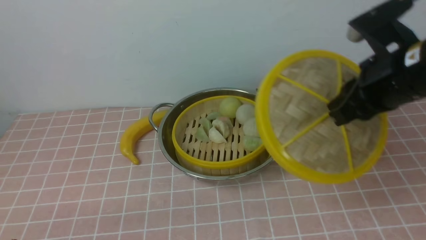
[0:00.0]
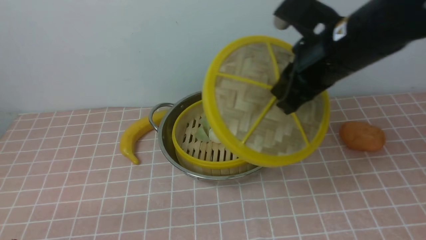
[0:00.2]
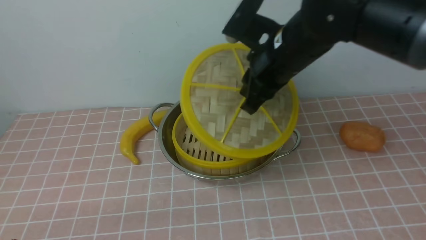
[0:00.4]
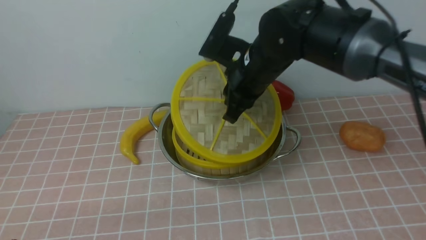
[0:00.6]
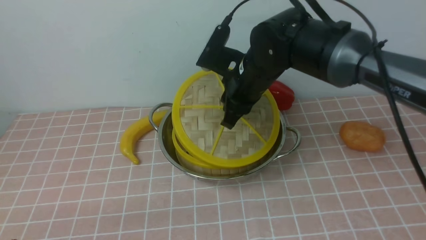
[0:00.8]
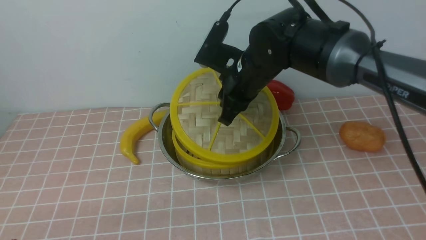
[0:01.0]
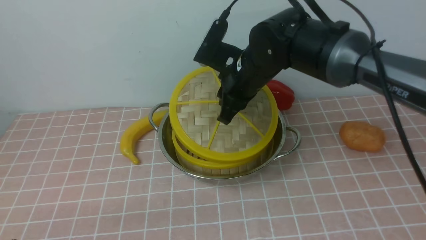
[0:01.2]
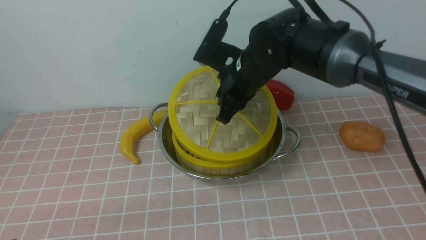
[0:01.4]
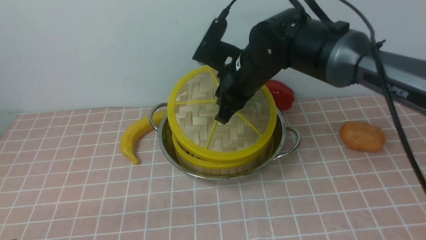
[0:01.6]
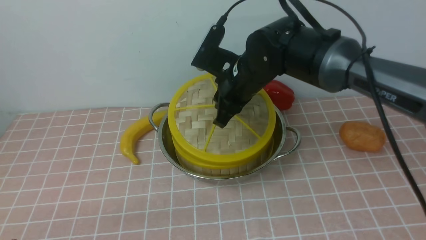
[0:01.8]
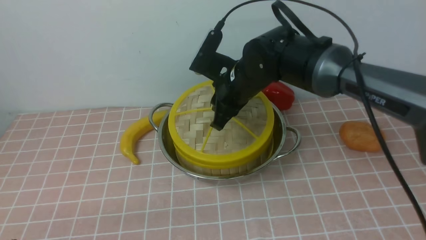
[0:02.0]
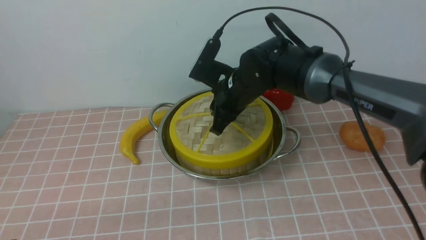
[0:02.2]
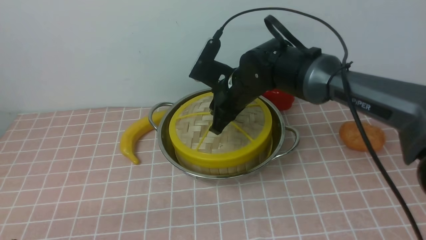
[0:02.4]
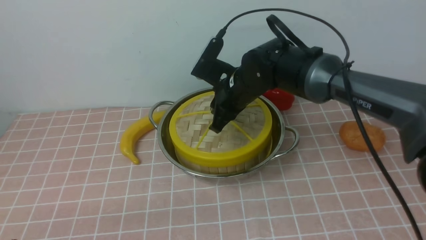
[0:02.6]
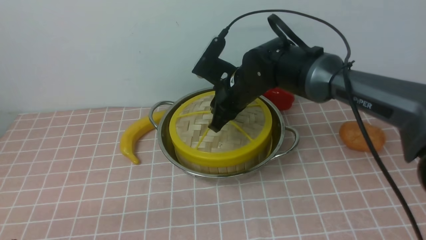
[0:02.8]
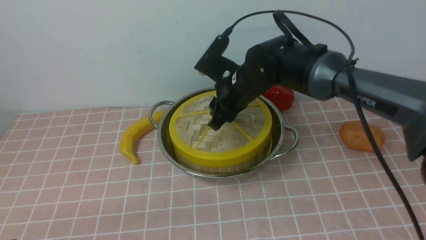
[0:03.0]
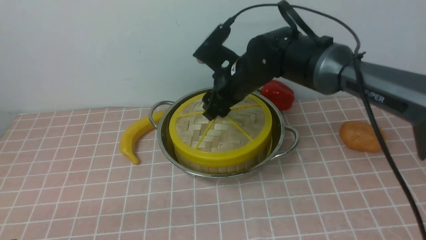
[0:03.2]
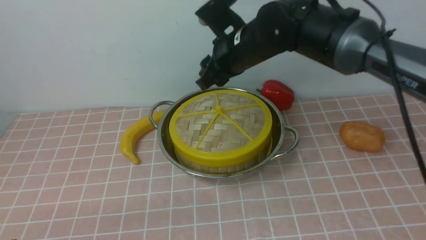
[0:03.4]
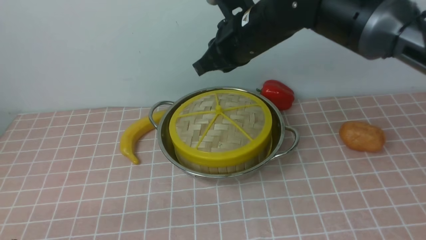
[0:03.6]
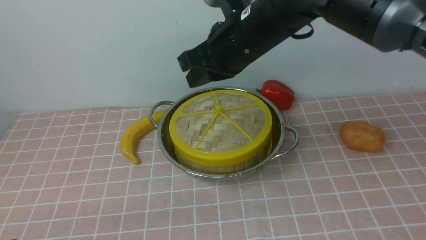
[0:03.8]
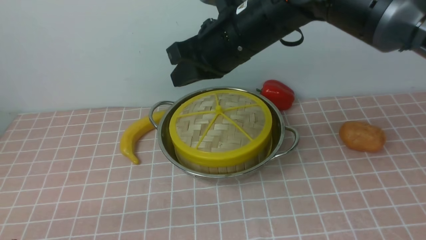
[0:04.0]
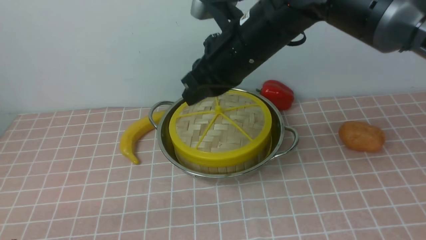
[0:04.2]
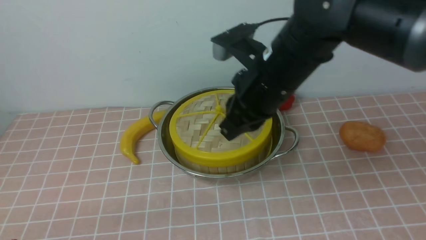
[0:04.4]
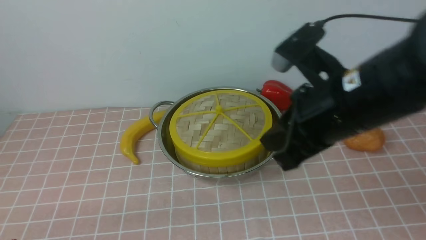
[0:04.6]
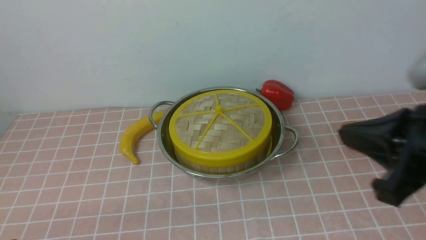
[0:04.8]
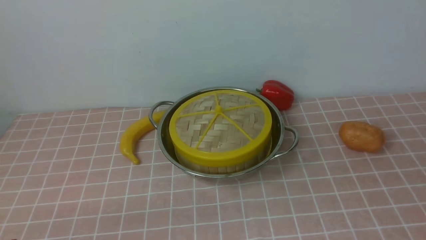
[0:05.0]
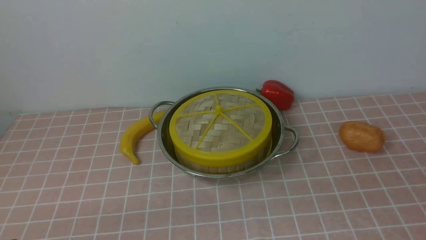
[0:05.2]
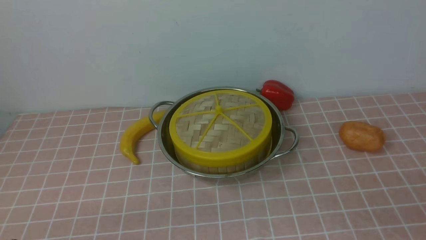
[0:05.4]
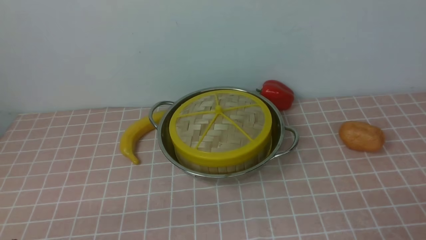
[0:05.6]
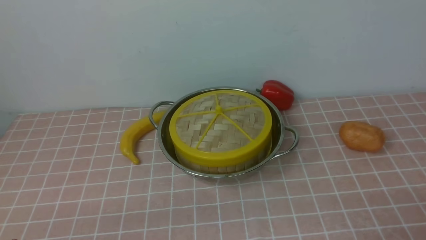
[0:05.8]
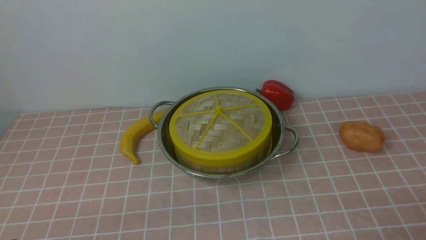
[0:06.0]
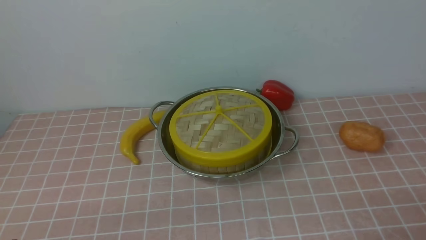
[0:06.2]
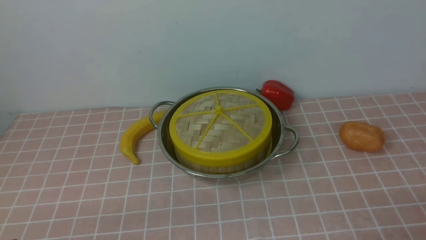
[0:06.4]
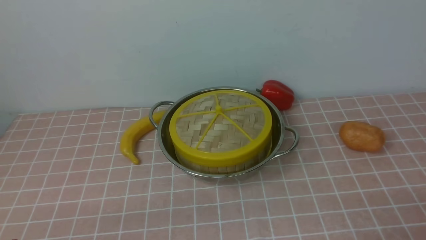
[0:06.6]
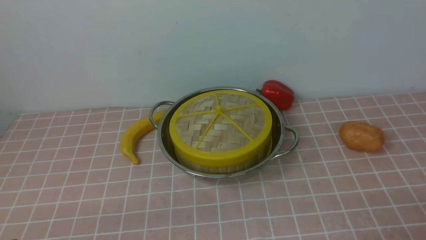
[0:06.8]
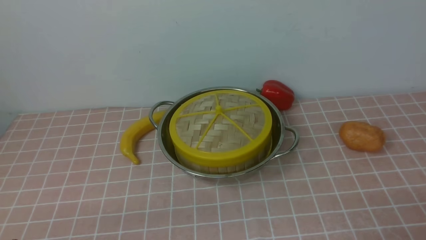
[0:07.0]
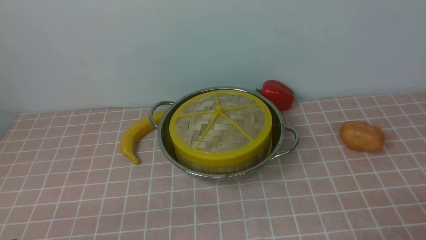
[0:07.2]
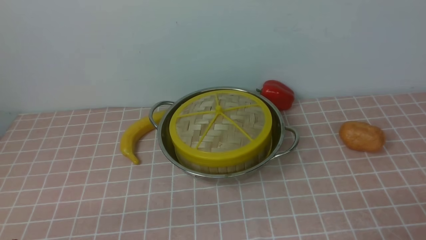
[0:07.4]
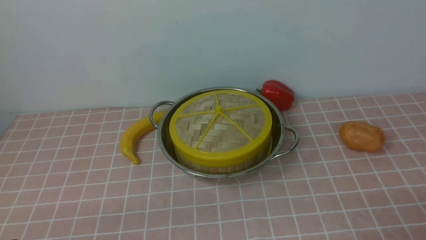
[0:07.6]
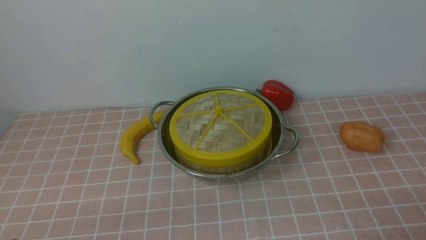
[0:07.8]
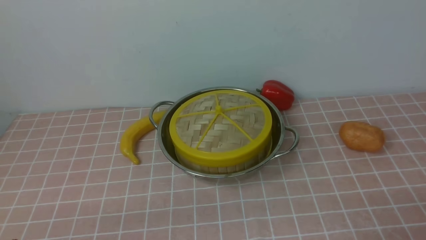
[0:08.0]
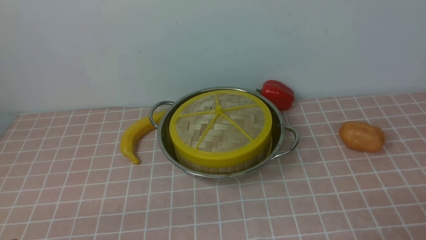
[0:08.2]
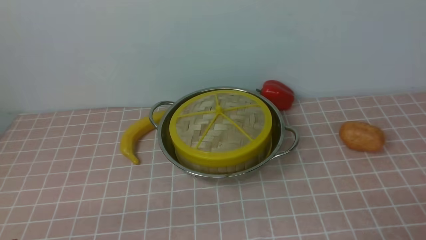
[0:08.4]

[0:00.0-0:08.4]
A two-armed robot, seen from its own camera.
Task of the whole recording: place the steamer in the pot on the pink tablecloth, and put the lid on the steamer.
Step, 0:00.0 to 0:03.2: use the right arm to place the steamer lid on the steamer.
0:00.0 to 0:01.4: The right gripper goes roughly 20 cm to the left, forward and downward.
0:01.4 to 0:02.8: The right gripper shifts by some 5 cm.
0:02.8 to 0:04.2: The right gripper travels upward and backward by about 15 cm, and closes its fingers.
0:04.2 to 0:05.6: The right gripper travels backward, to the right and downward by roughly 40 cm, and opens its fingers.
0:07.0 to 0:08.4: Neither gripper changes place.

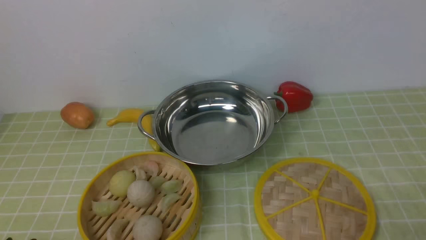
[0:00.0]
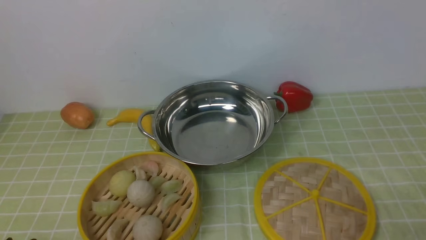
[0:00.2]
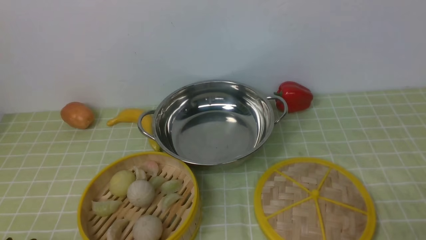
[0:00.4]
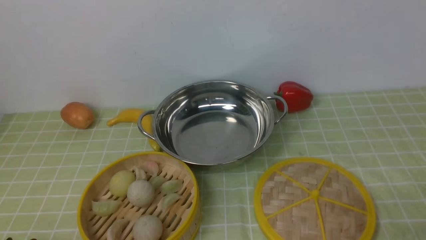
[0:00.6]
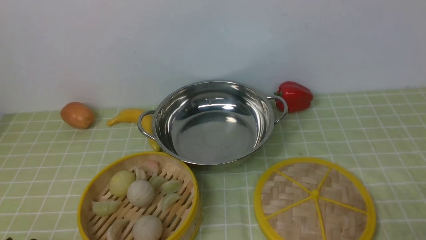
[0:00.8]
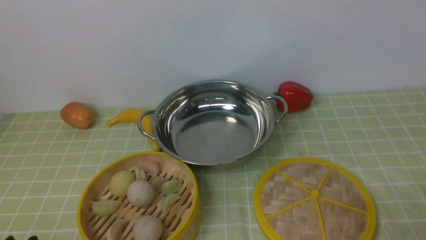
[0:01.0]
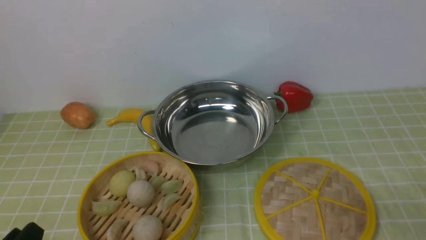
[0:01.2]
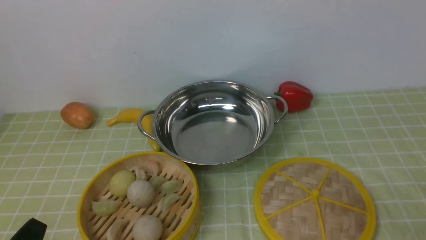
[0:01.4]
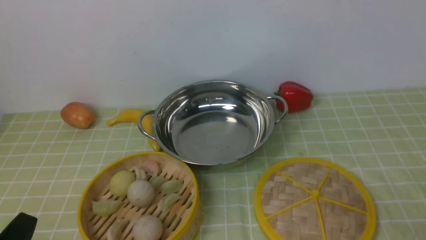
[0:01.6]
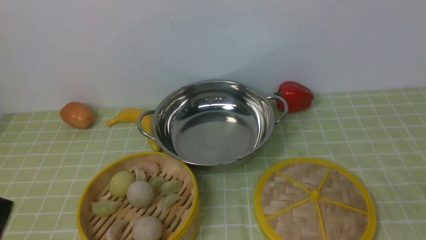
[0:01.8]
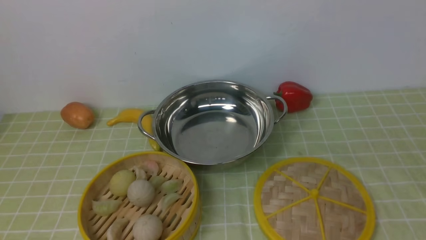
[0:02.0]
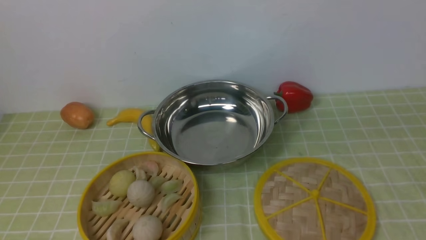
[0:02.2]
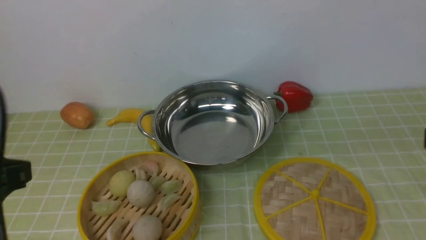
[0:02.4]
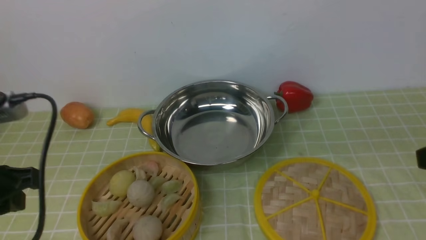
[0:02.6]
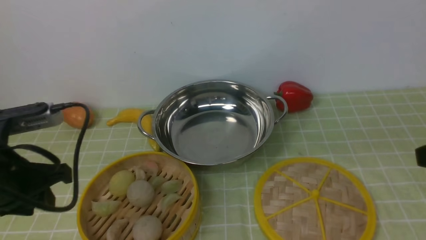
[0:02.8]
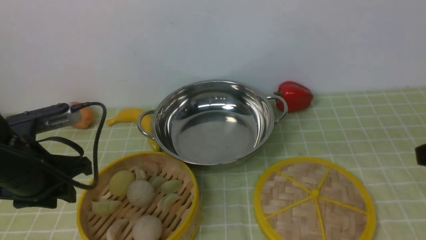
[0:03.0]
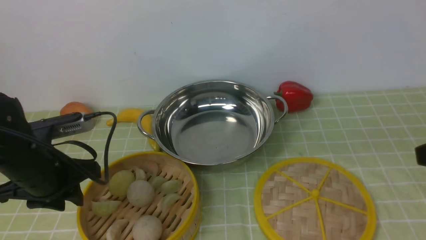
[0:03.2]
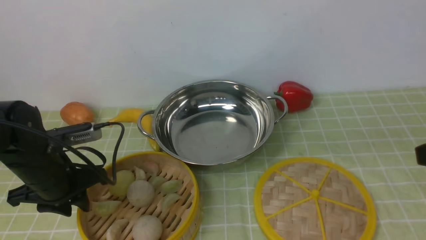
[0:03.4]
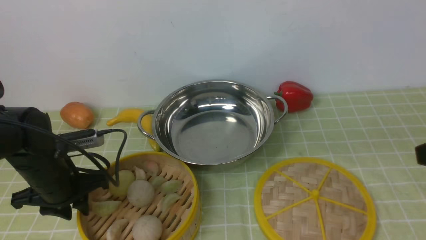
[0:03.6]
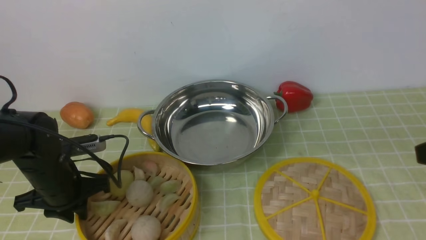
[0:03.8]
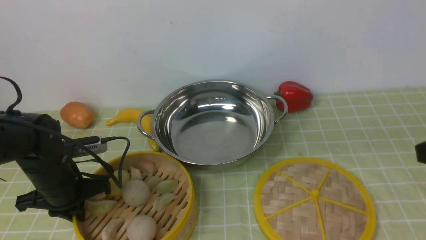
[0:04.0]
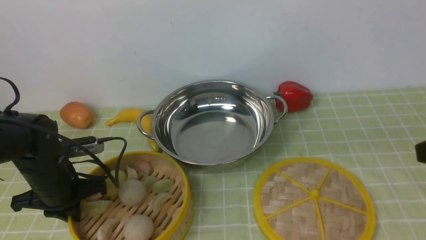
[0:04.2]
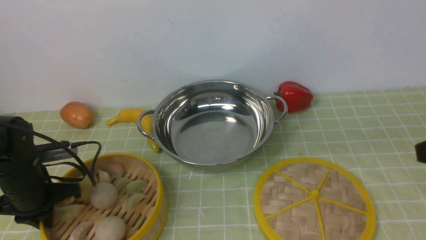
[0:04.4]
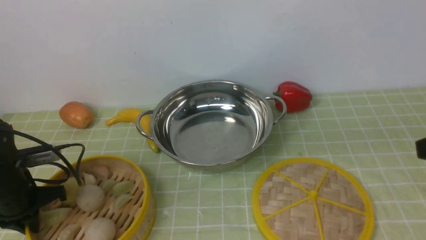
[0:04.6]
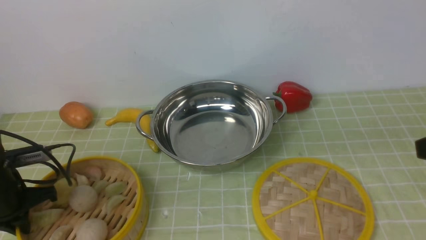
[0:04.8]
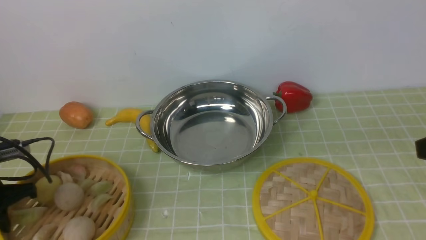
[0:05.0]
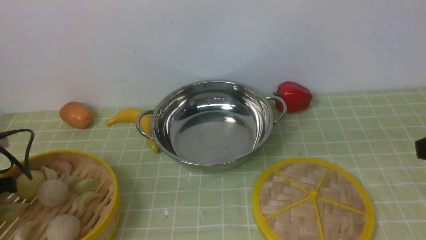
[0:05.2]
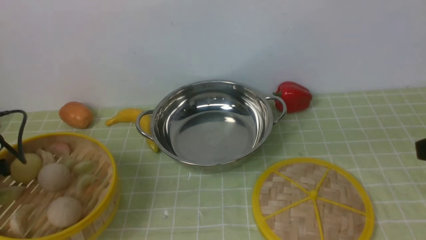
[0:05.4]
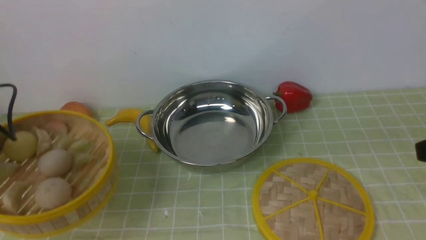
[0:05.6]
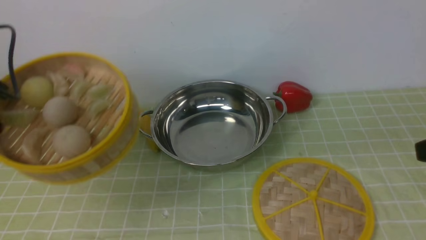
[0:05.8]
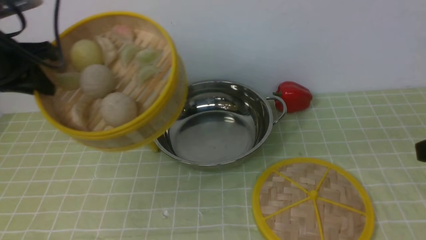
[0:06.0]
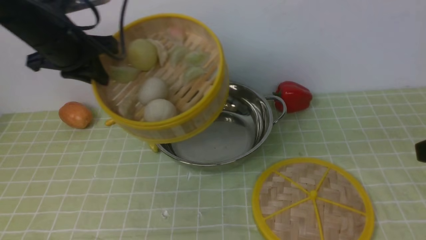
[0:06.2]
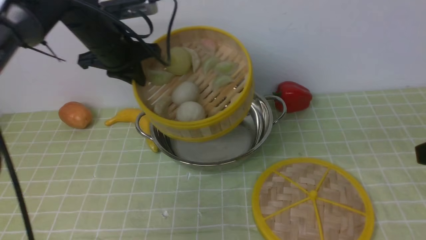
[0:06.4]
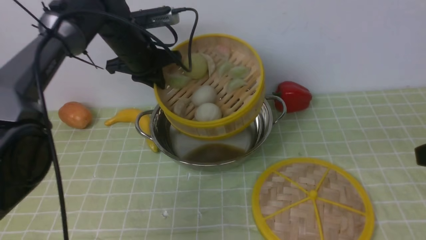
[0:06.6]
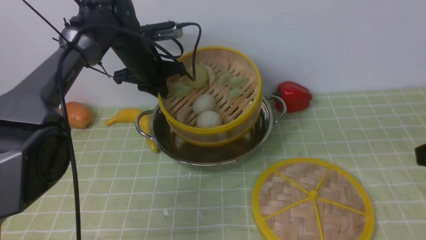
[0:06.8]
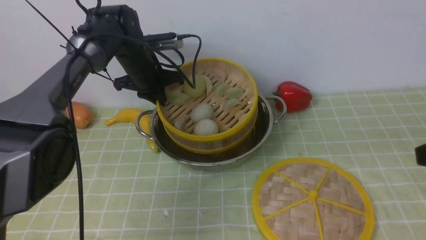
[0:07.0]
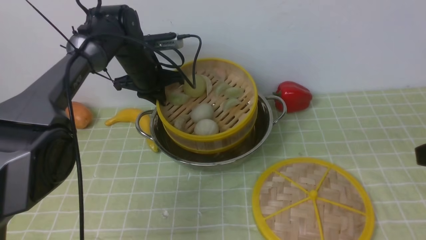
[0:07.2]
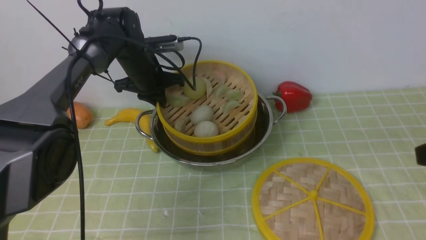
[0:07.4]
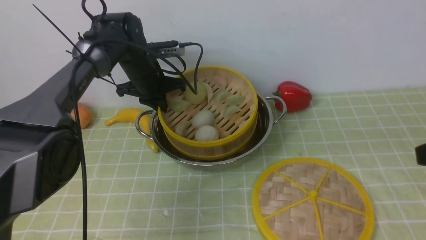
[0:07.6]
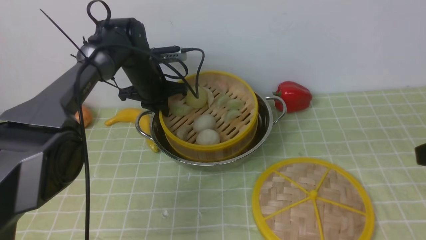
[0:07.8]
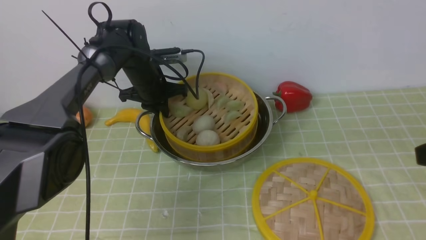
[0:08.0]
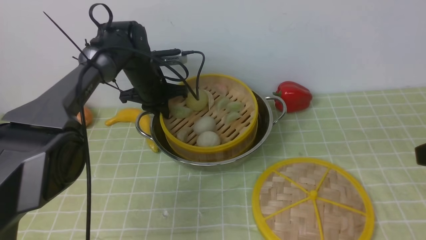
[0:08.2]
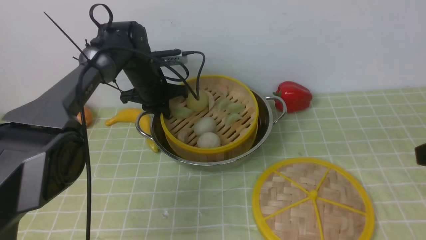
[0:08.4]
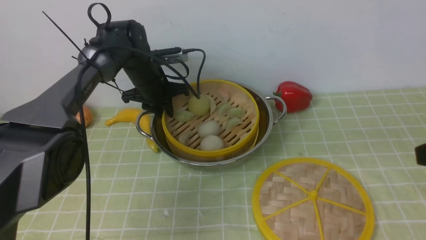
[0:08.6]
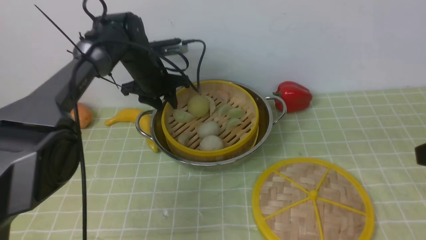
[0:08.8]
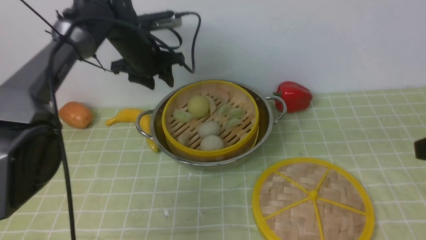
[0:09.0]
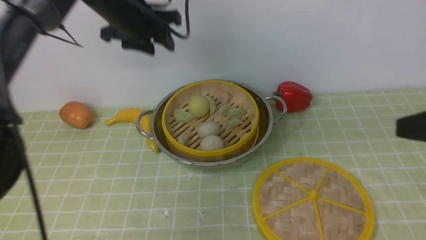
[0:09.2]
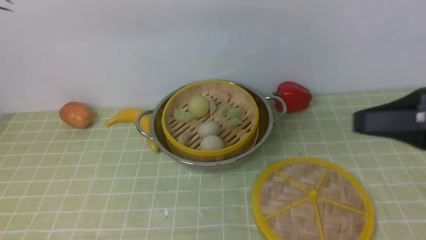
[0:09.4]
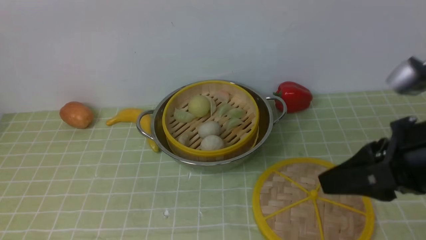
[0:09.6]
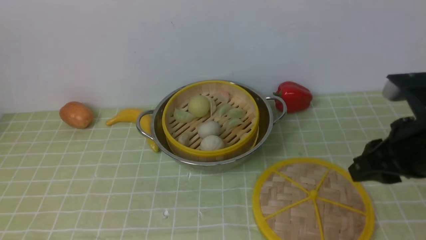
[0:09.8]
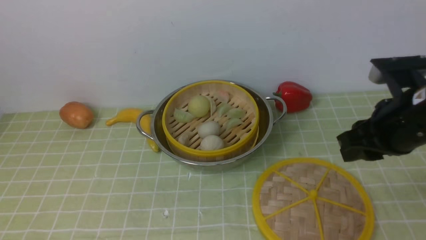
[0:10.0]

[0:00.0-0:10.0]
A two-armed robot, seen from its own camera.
Task of the whole recording: place the steamer in the pot on the green tablecloth, and put the lid on the steamer.
Step, 0:00.0 to 0:05.8: use the left arm to lift the steamer closest to it.
Step, 0:06.0 to 0:09.2: use the left arm to put the steamer into the iron steamer pot in the middle.
0:01.4 to 0:02.8: The right gripper goes about 15 cm upward and forward. The left gripper is displaced forward and upward by roughly 20 cm.
0:02.8 to 0:04.2: The left gripper travels downward and forward by some 15 cm, and closes up.
0:04.2 to 0:05.8: The left gripper is displaced upward by approximately 20 cm.
0:05.8 to 0:07.2: The left gripper shifts about 30 cm forward, to the right and downward.
0:07.2 to 0:08.6: The left gripper opens.
0:08.6 to 0:10.0: The left gripper travels backward and upward by about 50 cm, and closes its fingers, while the right gripper is displaced forward, to the left and downward by roughly 15 cm.
